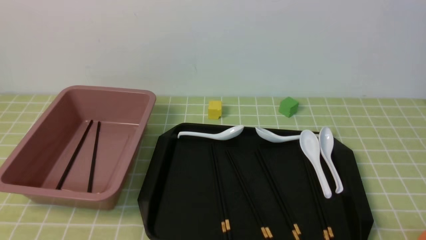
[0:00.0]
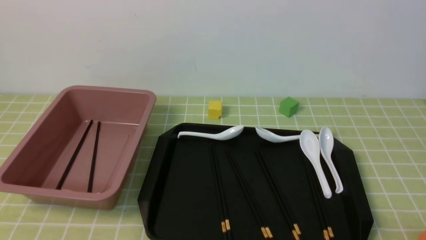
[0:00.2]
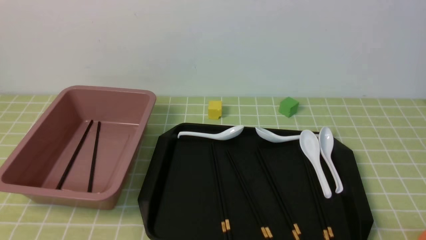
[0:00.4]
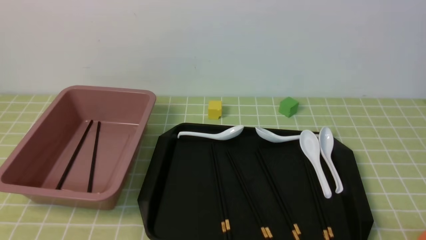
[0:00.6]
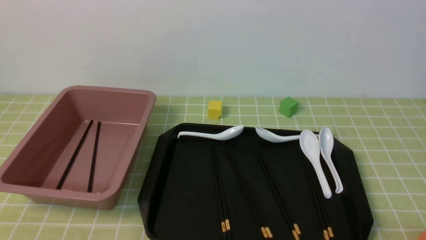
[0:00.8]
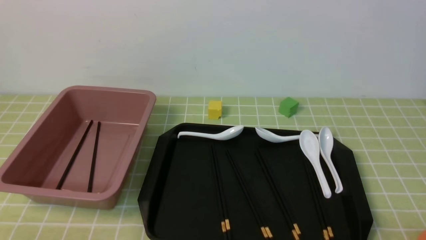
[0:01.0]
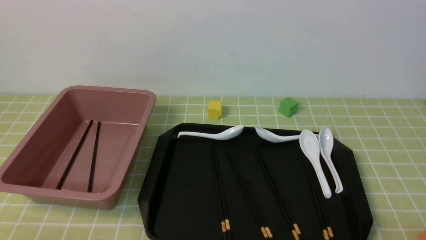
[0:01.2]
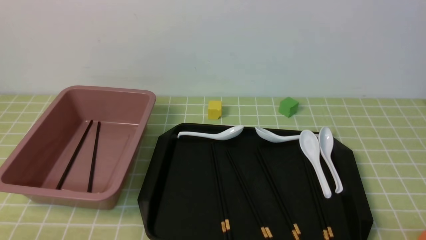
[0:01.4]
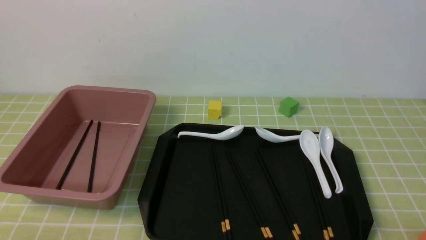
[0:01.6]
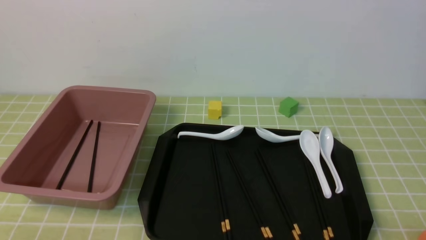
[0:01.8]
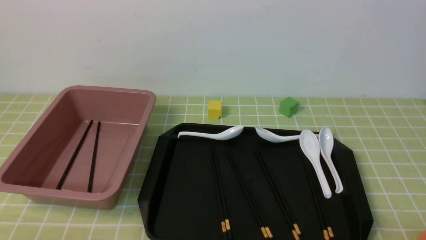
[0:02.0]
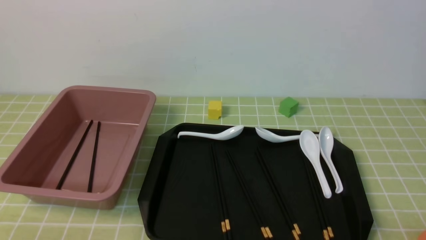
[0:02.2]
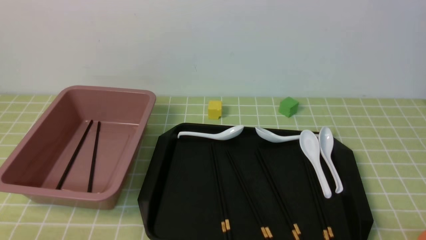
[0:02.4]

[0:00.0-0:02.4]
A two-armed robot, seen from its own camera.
0:01.2 to 0:02.4: Neither gripper changes place.

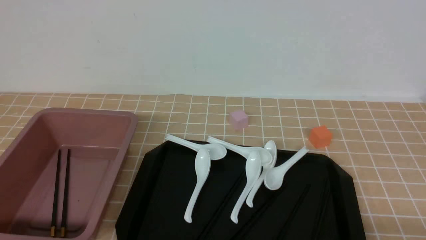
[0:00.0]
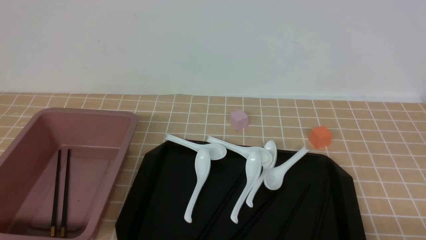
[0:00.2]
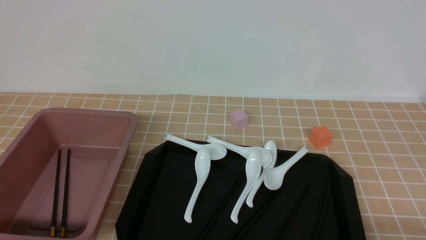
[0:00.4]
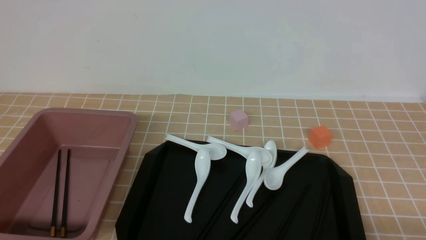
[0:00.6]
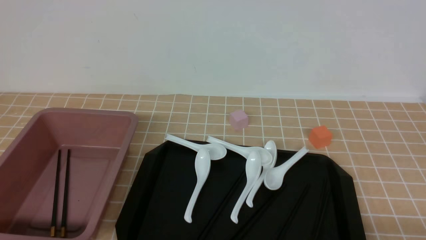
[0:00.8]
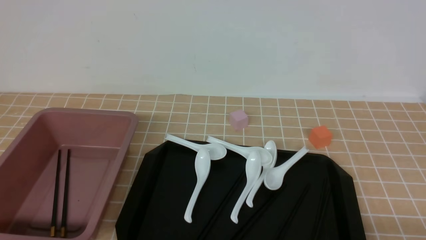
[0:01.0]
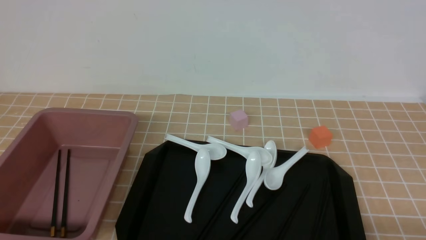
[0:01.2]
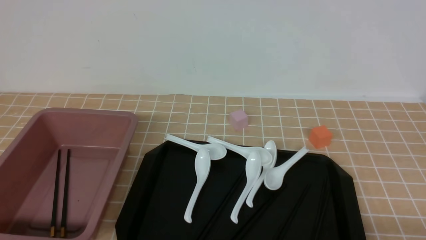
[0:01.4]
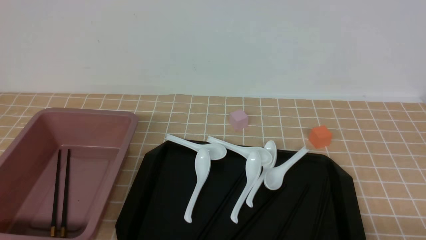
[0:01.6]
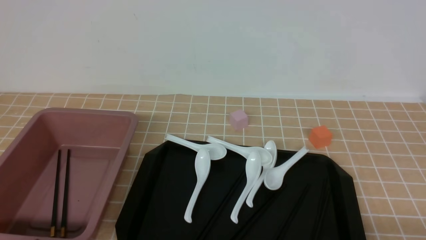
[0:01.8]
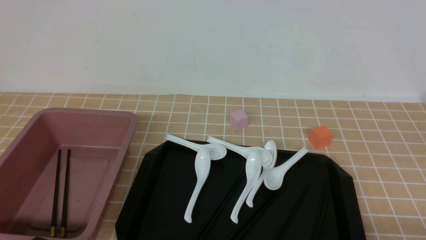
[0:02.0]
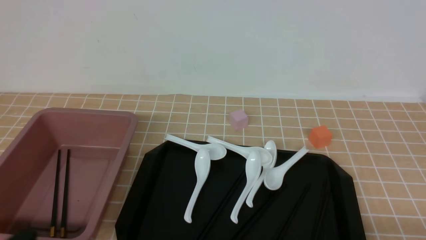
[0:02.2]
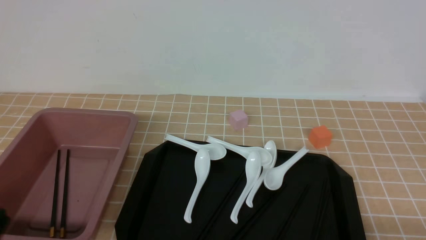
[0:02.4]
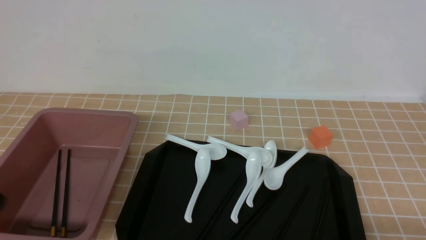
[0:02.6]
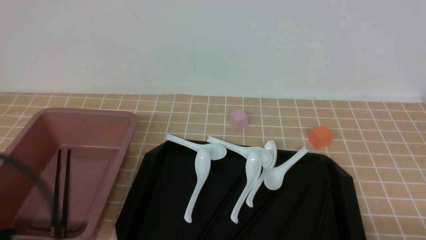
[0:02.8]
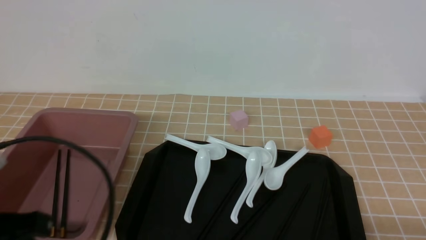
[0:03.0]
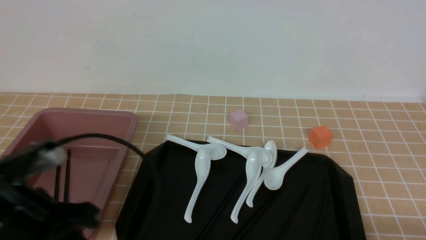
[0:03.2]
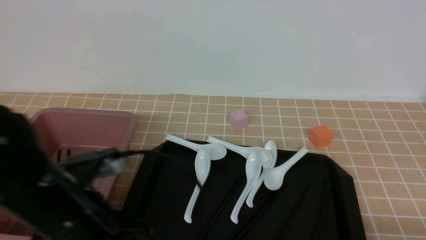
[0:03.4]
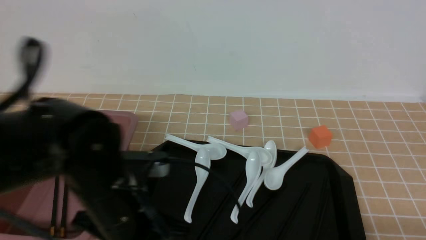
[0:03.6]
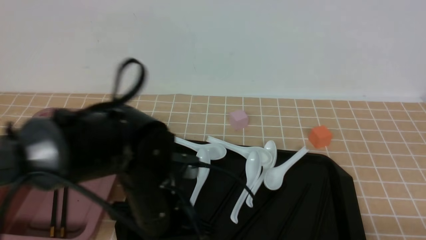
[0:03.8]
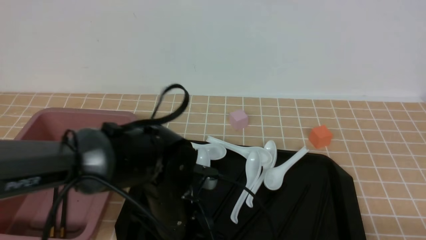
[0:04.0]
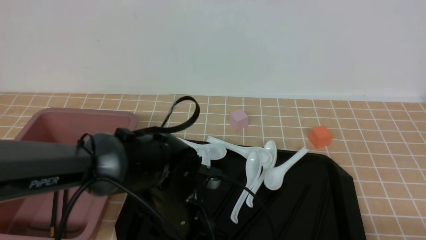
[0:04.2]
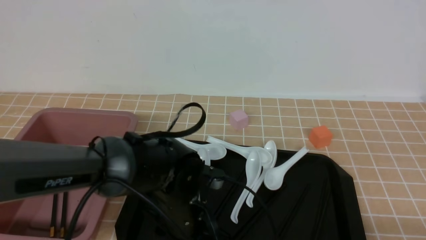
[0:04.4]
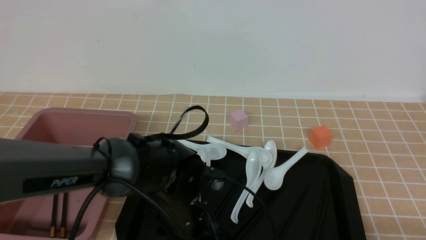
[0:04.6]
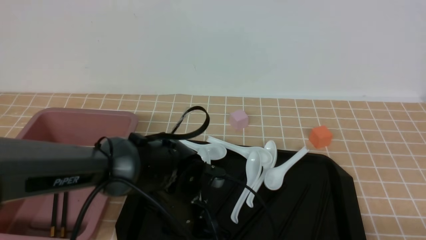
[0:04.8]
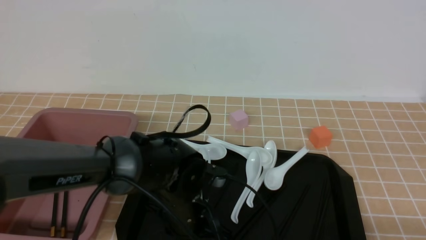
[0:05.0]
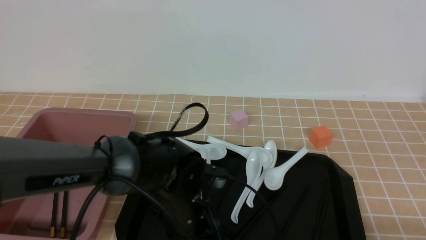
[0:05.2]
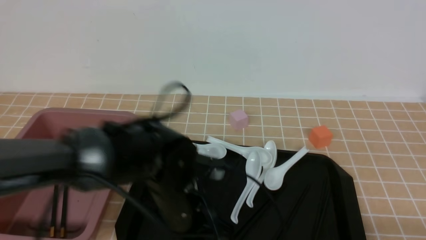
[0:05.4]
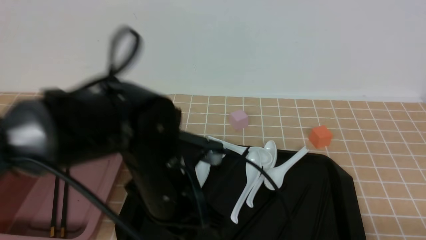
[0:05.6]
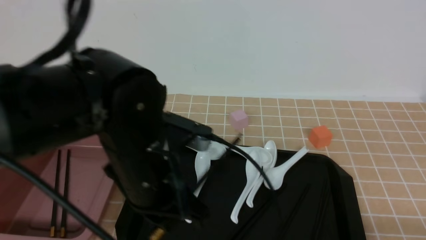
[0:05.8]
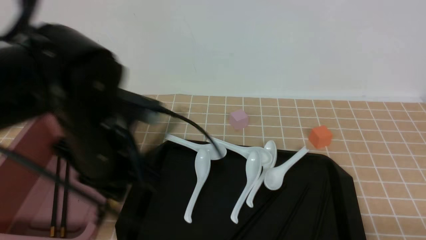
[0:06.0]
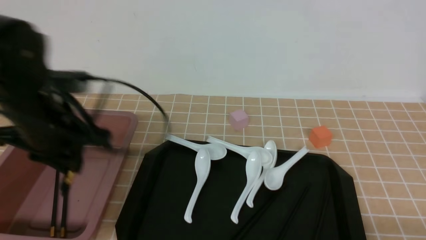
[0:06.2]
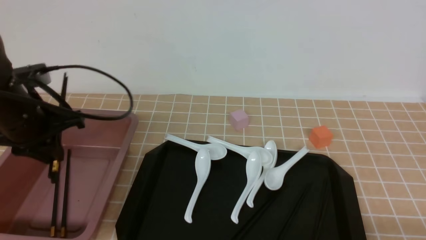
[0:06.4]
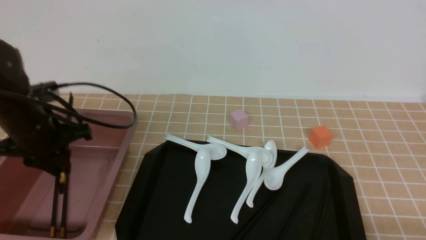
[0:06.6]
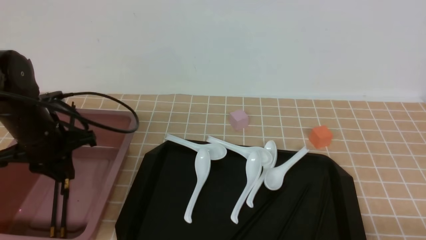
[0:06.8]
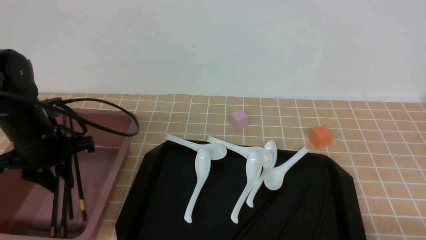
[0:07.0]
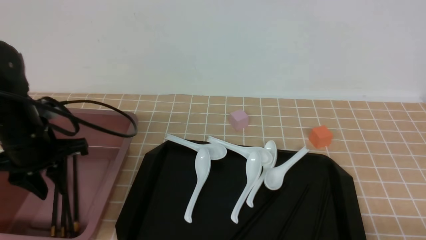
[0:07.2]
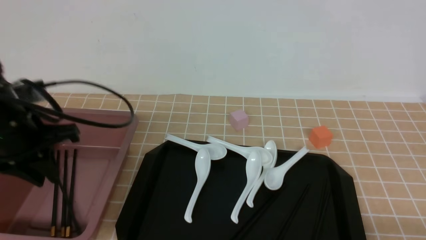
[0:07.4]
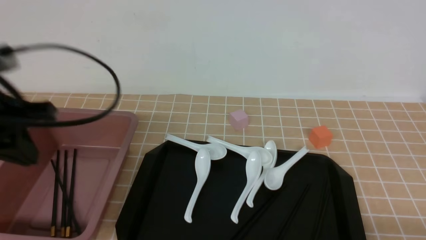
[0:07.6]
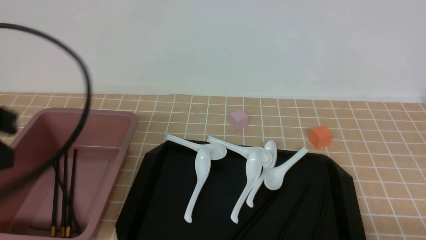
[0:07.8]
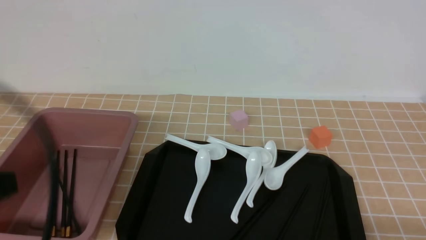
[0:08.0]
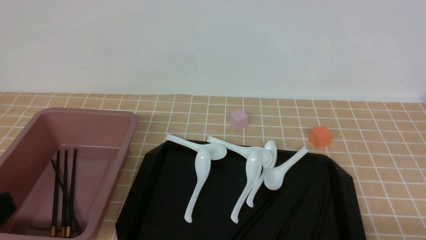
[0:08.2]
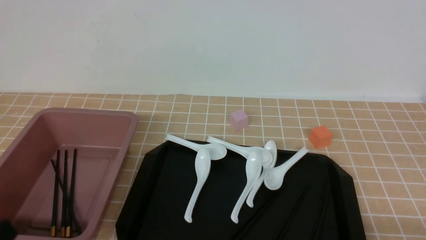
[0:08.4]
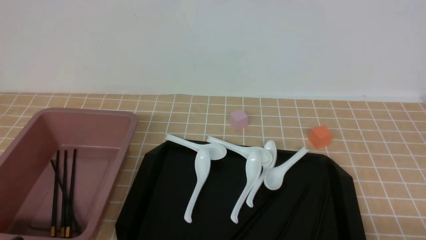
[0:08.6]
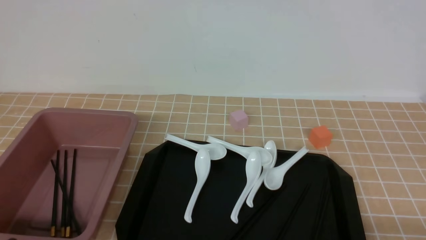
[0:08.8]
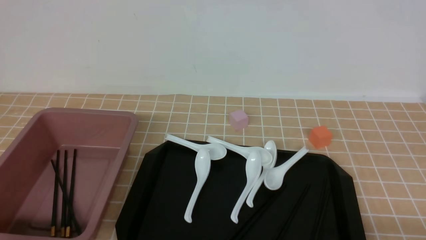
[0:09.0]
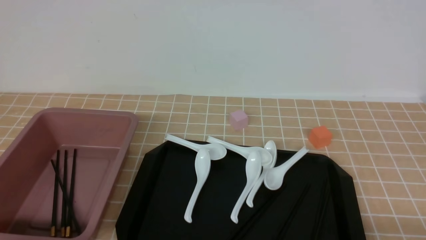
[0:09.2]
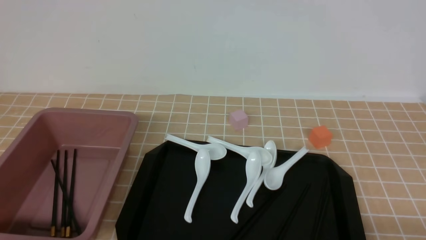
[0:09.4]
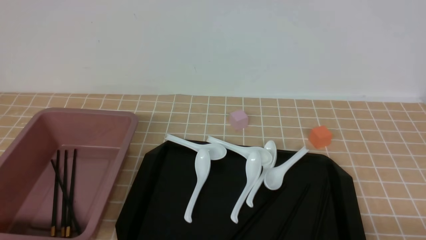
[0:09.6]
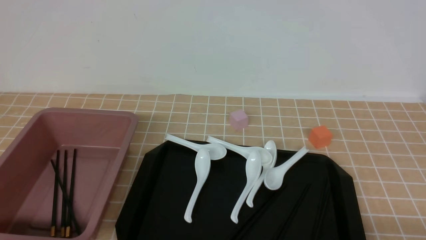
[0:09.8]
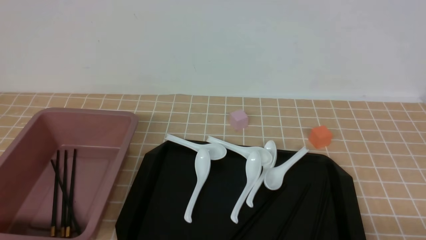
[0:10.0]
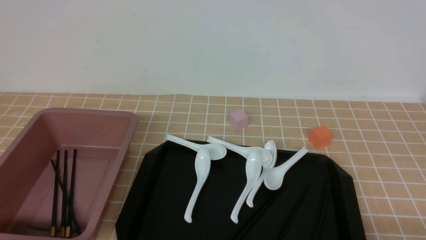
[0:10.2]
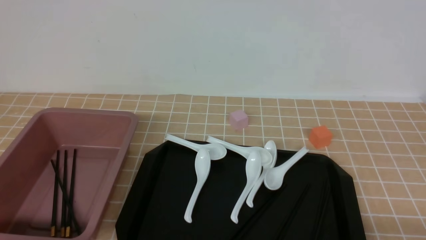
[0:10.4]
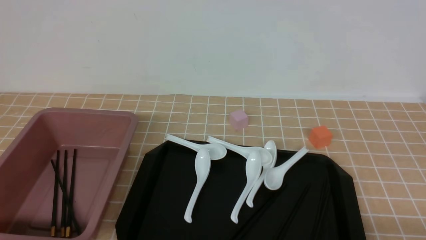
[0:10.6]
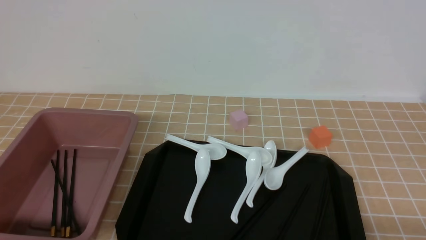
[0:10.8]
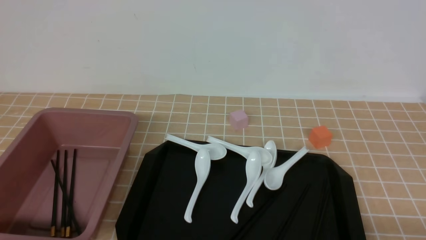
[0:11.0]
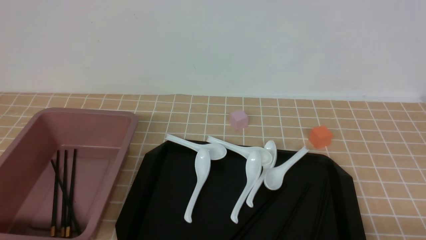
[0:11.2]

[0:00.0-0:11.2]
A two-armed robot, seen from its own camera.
Step, 0:00.0 to 0:05.6: use the left arm to grab a pair of chopsticks.
Step, 0:05.8 to 0:07.2: use the left arm to put the chopsticks into the lunch box.
0:01.6 to 0:03.2: The left gripper moves forward, upward and to the right, roughly 15 cm.
0:03.2 to 0:04.8: The left gripper is displaced to the right, downward and forward by roughly 25 cm, and opens its fingers.
0:04.8 to 0:06.4: The left gripper travels to the left and upward by roughly 25 cm.
0:06.4 to 0:08.0: The left gripper heads backward, covering about 20 cm.
0:08.0 to 0:09.6: The left gripper moves downward, approximately 15 cm.
0:09.6 to 0:11.2: Neither gripper changes place.
